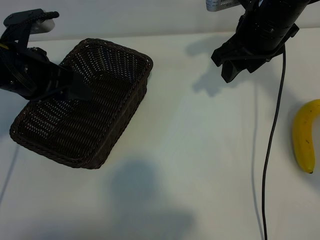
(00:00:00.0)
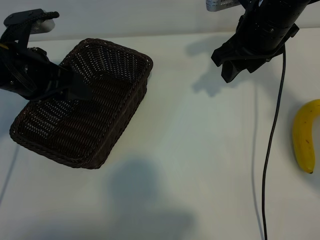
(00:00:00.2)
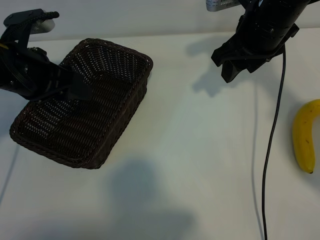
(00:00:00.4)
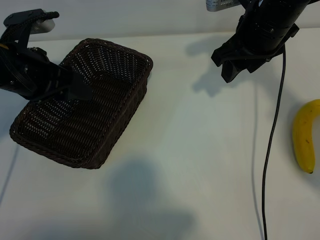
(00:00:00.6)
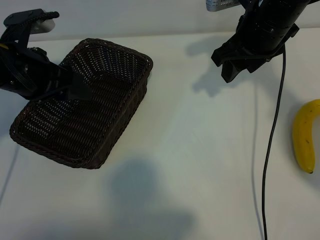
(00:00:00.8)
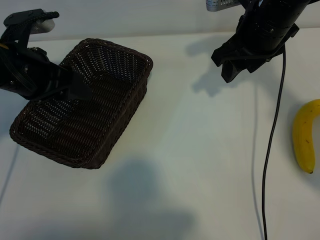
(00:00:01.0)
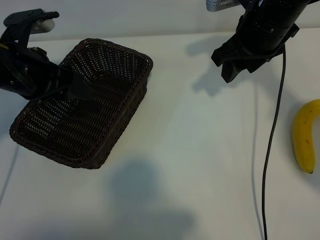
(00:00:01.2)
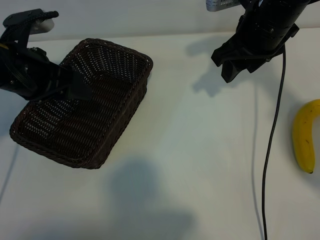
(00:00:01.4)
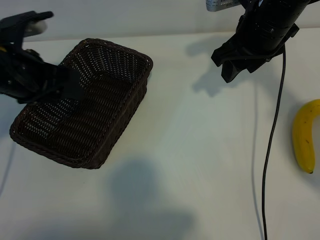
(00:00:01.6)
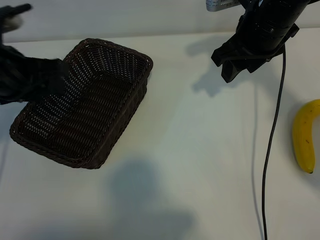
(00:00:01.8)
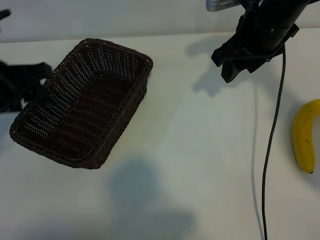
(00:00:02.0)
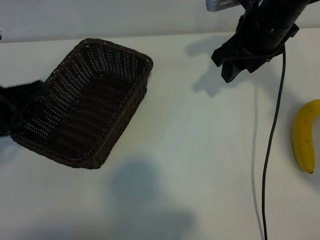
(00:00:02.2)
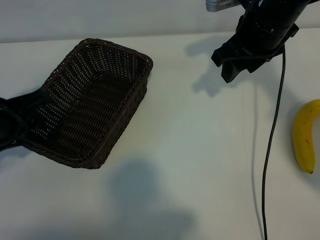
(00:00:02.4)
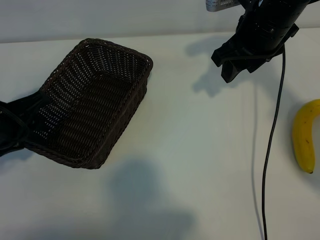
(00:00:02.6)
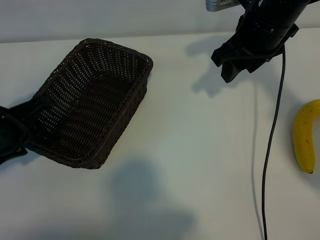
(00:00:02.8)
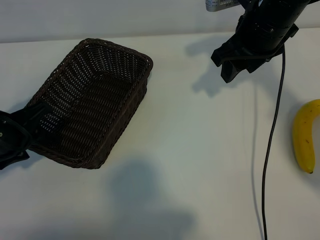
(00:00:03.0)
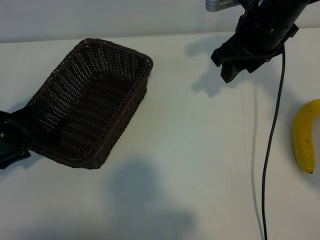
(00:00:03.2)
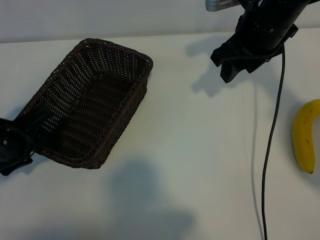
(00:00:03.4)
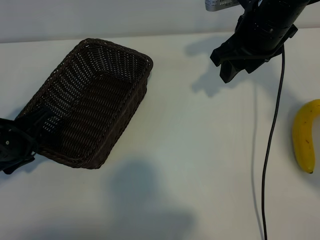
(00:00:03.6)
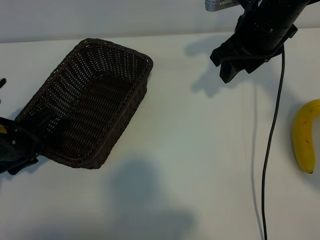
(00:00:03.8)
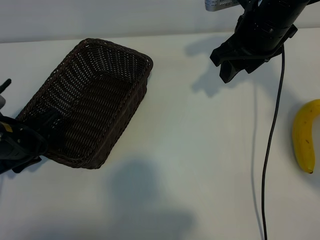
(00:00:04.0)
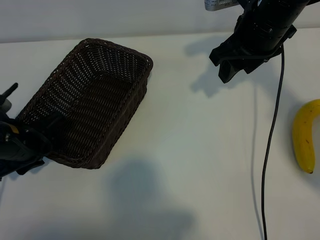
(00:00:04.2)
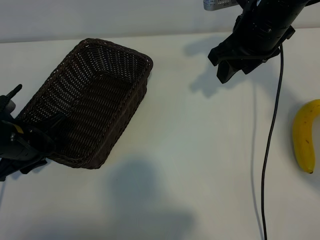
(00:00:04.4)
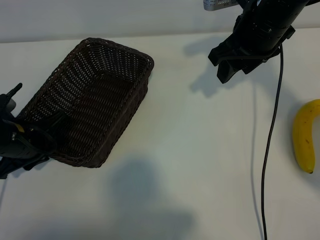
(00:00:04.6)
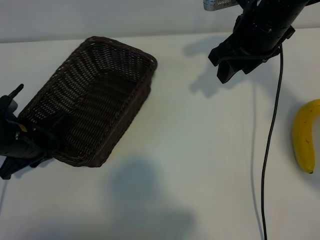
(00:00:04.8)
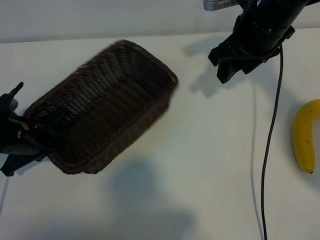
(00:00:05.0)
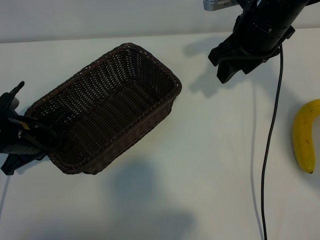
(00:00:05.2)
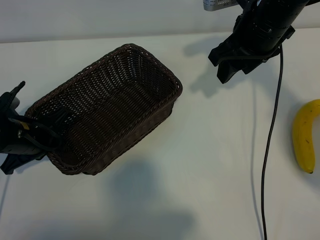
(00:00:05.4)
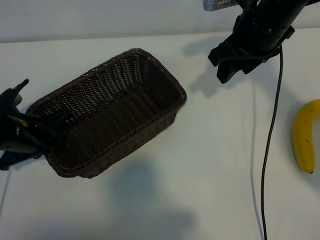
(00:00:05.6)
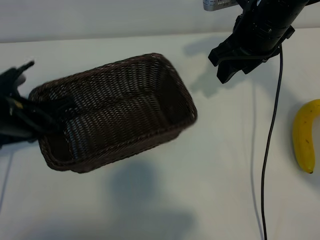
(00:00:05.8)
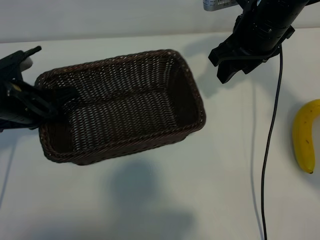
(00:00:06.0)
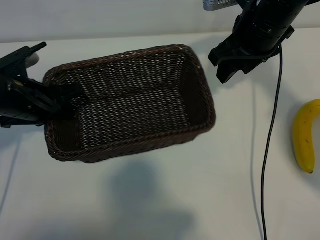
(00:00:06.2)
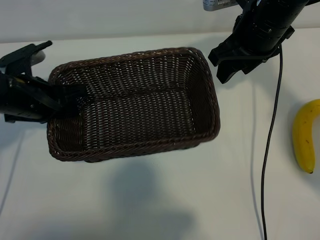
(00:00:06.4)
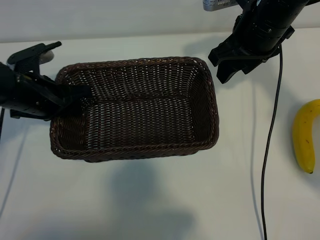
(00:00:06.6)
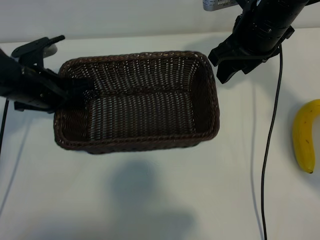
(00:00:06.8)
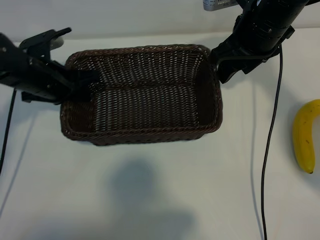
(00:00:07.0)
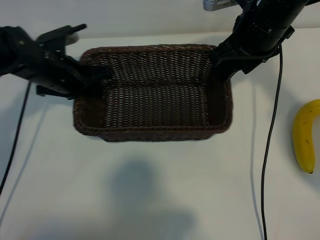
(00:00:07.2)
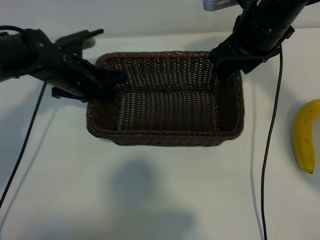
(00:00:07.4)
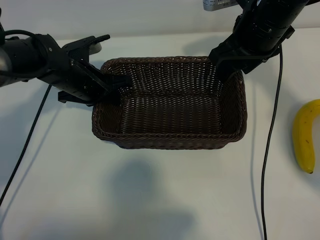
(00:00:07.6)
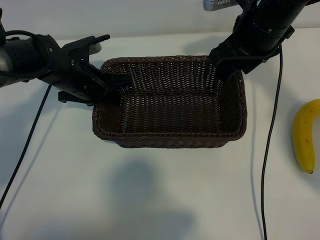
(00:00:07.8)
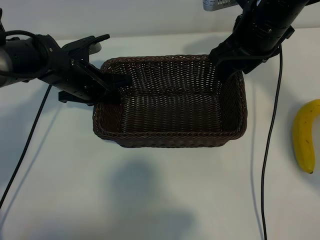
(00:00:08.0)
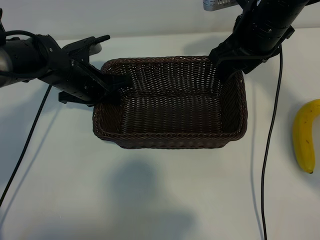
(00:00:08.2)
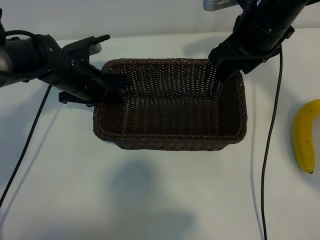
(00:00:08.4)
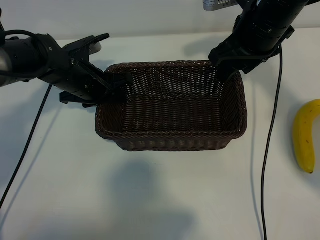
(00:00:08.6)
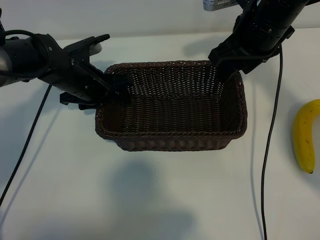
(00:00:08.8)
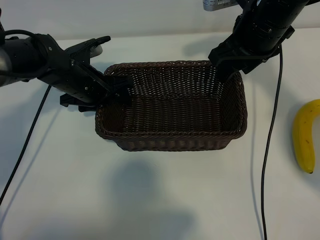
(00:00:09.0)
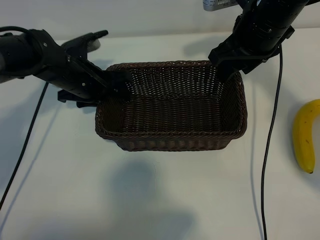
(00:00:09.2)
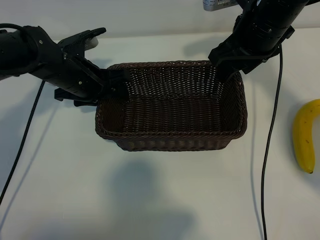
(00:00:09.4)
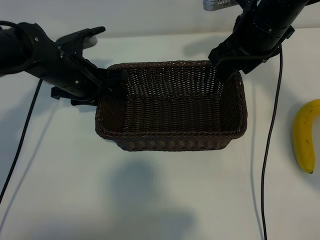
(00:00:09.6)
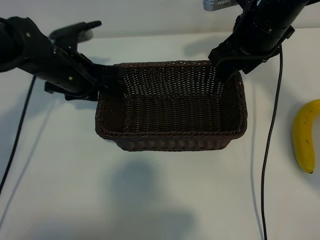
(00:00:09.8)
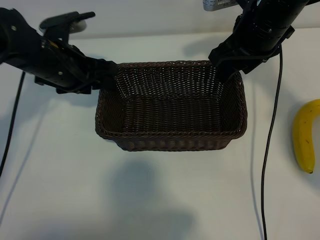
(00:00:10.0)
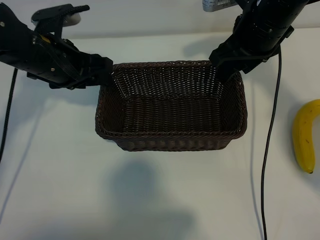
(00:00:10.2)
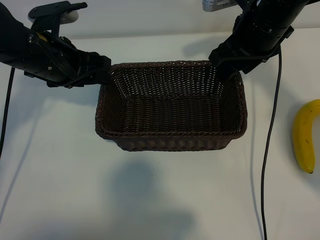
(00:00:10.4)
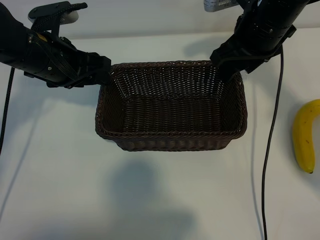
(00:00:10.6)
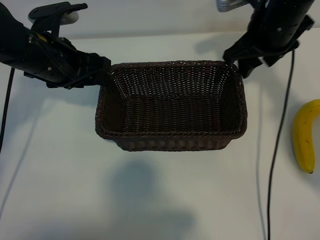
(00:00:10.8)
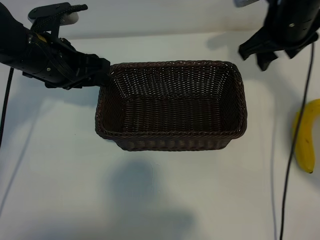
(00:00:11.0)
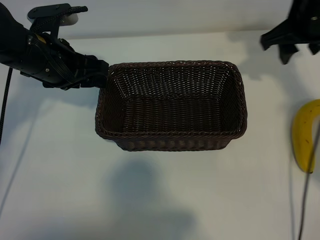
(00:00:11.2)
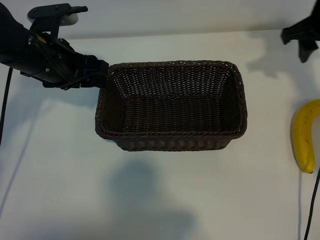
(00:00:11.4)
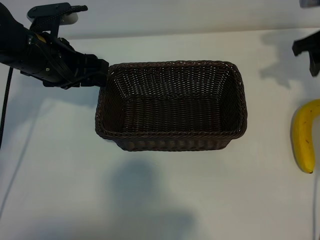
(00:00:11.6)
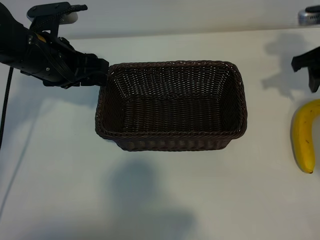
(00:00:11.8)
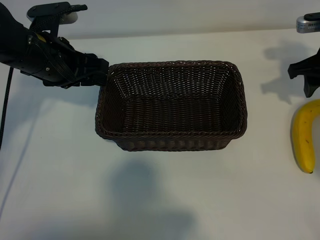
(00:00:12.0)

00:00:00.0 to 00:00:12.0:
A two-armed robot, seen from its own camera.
Task of the whole recording: pick up the banana and put it into the basket.
Step, 00:00:01.4 to 00:00:05.0: Grasp the basket with the left gripper.
Step, 00:00:05.2 to 00:00:09.2: Place the basket in the center of the table with the left gripper.

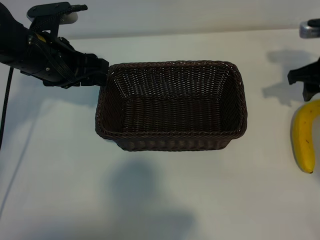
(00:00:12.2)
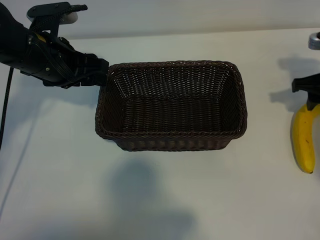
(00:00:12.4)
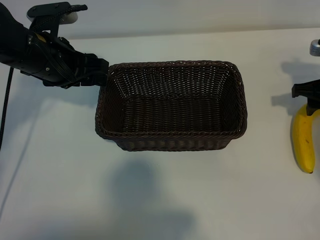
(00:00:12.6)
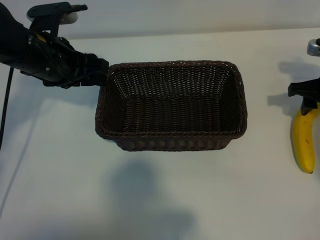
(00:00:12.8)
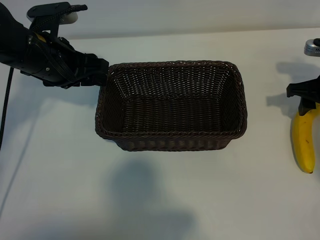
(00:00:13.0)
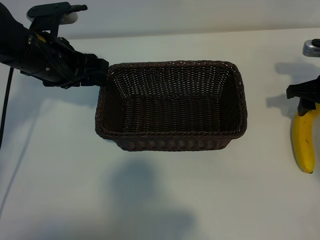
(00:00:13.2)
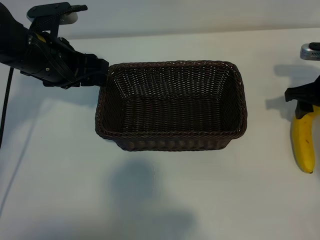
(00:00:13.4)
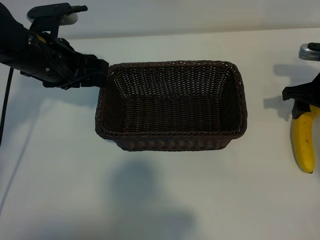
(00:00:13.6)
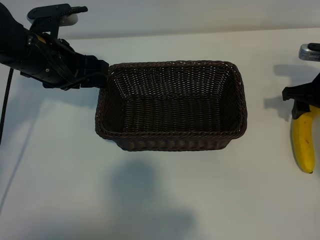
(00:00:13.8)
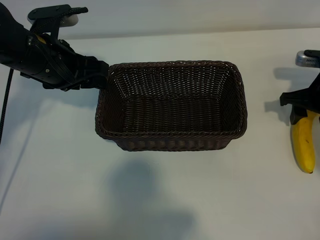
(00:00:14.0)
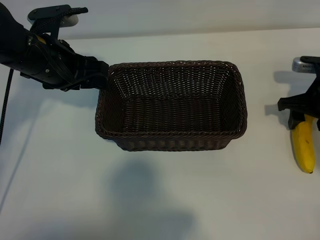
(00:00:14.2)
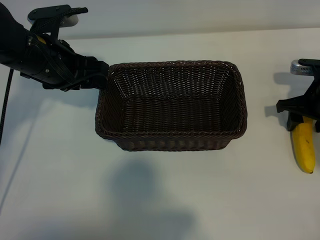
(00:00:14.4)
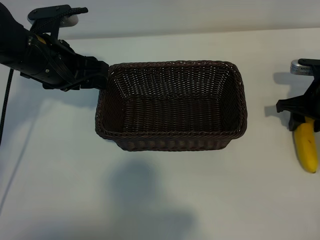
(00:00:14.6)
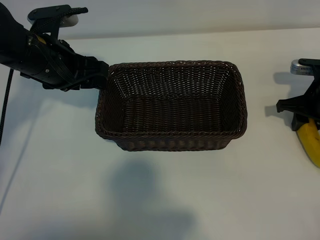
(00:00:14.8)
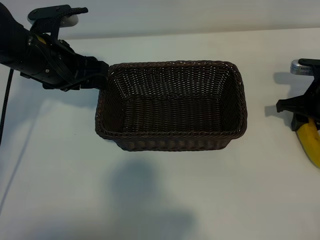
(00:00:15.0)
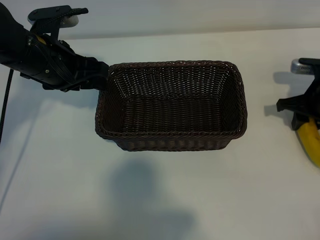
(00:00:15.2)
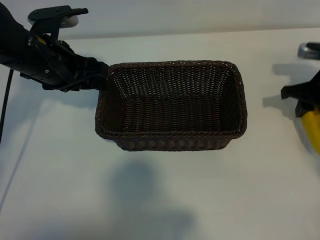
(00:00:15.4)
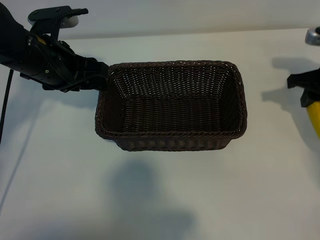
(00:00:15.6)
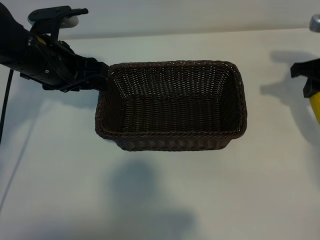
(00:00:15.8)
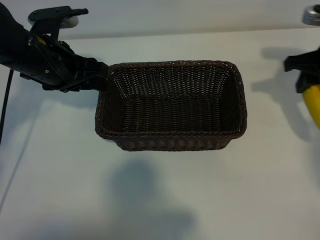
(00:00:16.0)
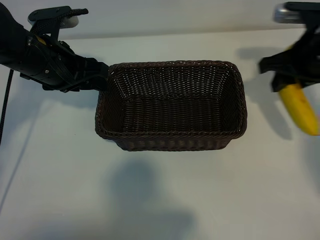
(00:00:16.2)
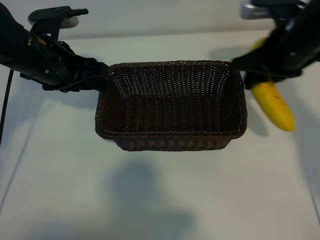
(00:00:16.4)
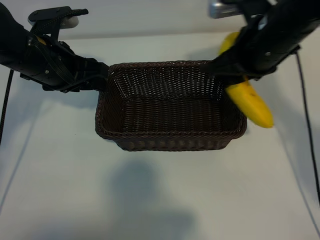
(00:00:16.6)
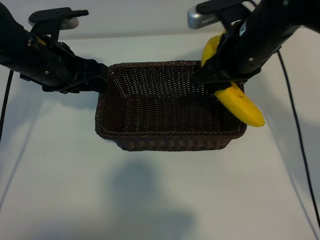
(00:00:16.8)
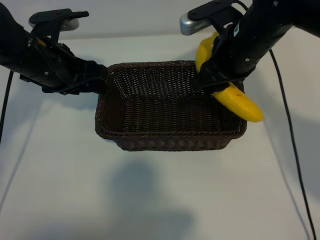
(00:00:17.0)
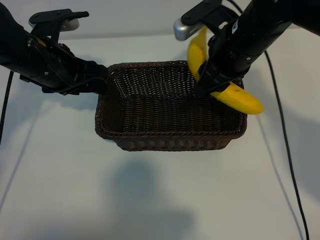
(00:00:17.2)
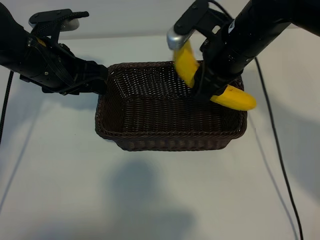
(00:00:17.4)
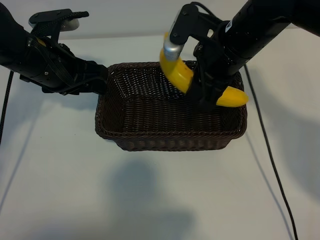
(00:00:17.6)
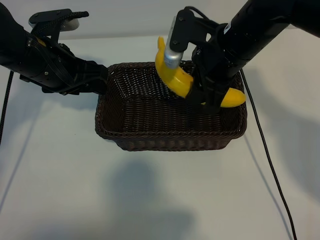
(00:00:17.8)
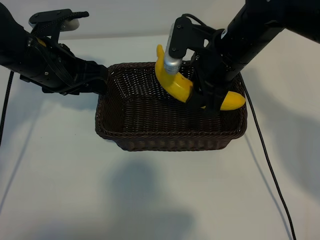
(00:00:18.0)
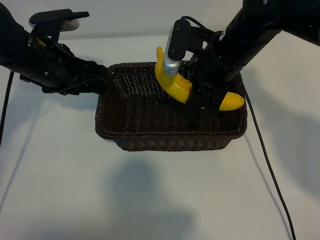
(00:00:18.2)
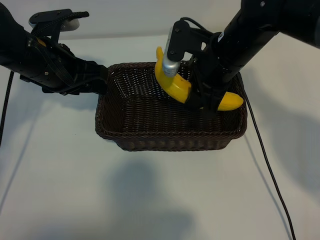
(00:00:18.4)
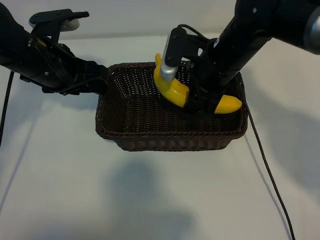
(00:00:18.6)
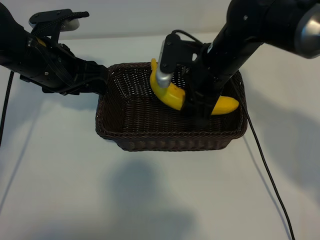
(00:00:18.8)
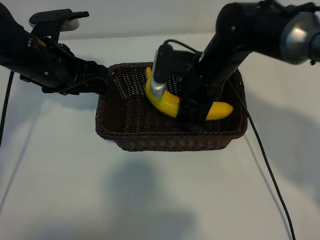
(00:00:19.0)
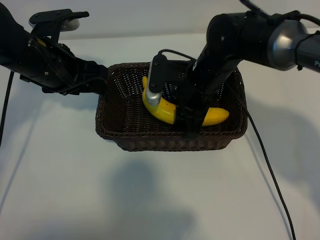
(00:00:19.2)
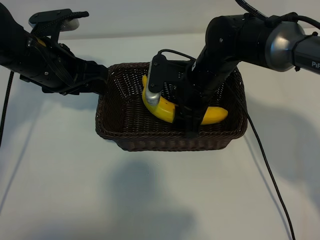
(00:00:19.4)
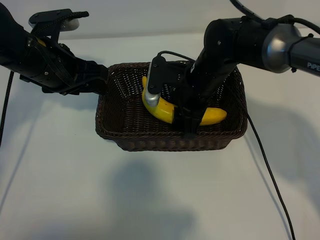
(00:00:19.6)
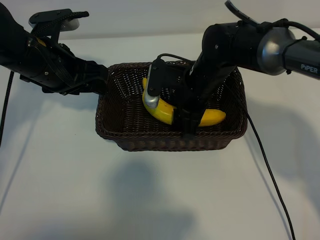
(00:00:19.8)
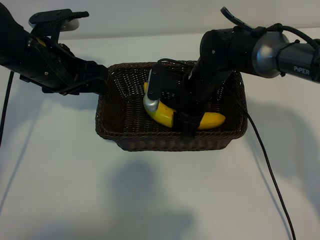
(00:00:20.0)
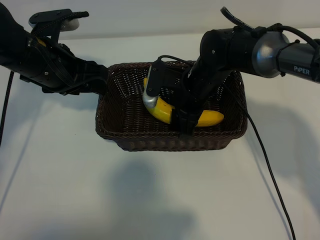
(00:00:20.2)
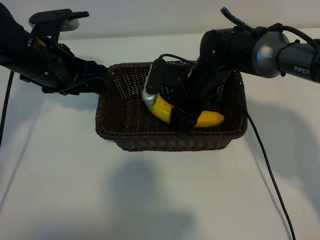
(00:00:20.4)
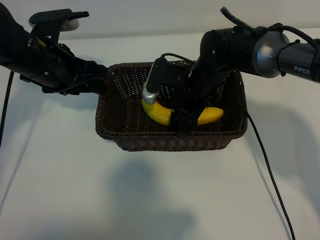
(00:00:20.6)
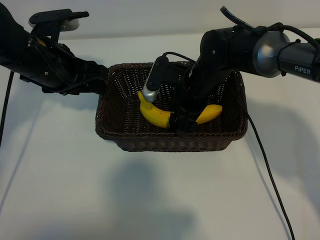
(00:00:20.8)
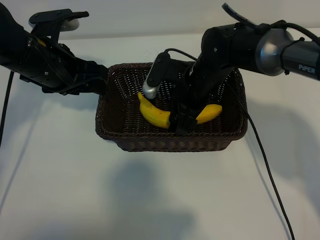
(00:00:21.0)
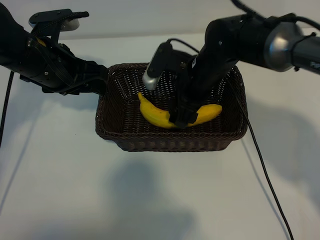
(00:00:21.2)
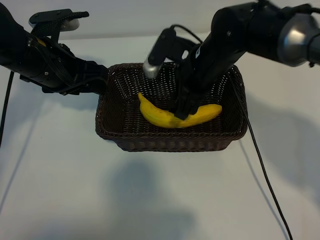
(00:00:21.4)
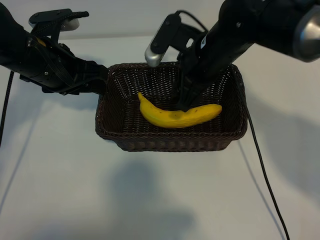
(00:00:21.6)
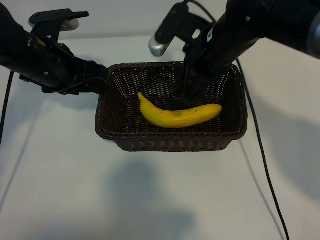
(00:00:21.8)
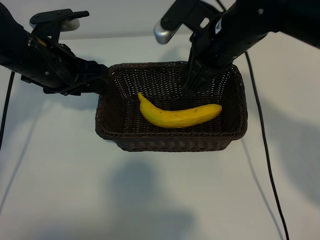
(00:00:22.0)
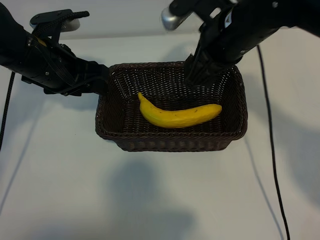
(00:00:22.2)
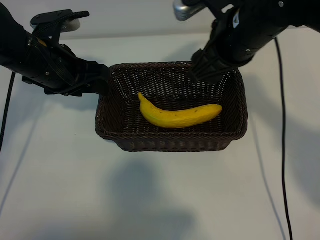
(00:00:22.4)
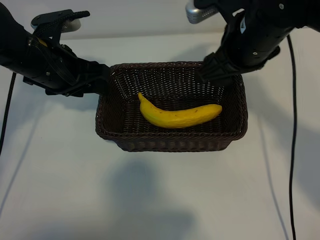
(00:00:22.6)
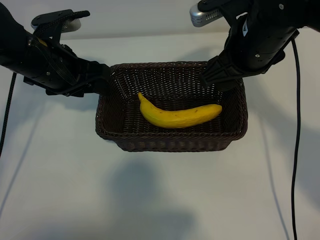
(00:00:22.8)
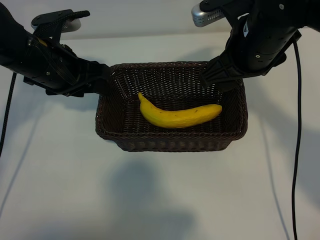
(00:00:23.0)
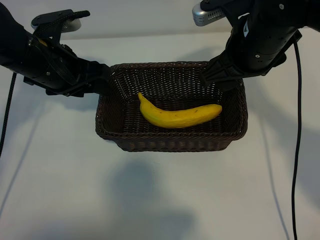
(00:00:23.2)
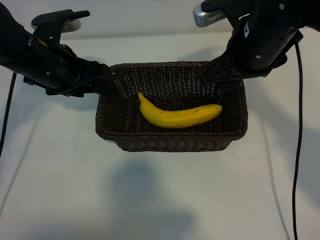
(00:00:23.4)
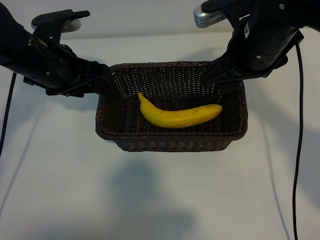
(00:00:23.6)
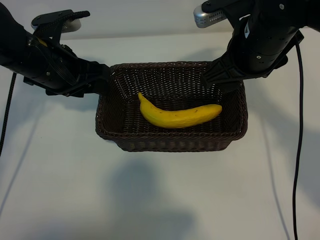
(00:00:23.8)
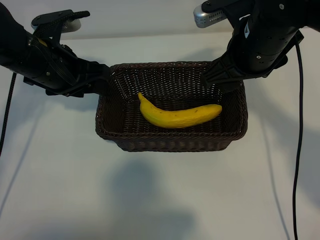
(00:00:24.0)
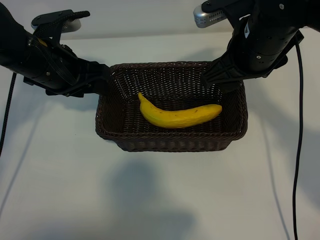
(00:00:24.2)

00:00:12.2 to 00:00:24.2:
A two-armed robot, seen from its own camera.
Task of the whole recording: pick up the banana and put it into the basket.
Step, 00:00:12.2 to 00:00:14.6: Grasp the banana with right gripper.
Step, 00:00:14.8 to 00:00:21.4: Place the banana in the basket with right gripper.
